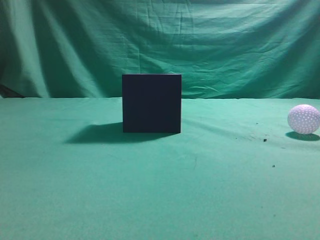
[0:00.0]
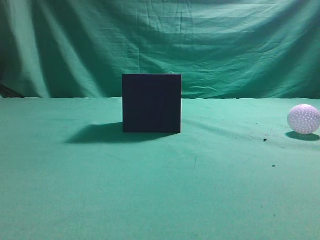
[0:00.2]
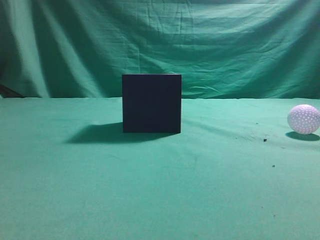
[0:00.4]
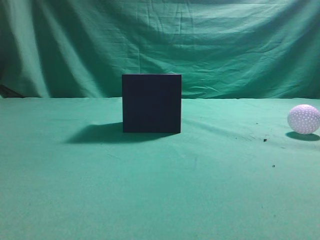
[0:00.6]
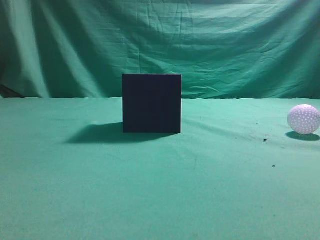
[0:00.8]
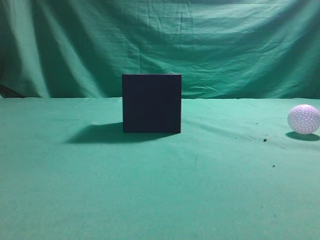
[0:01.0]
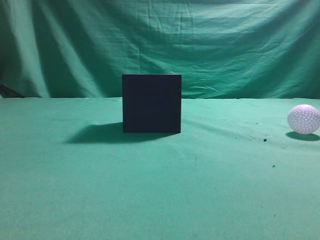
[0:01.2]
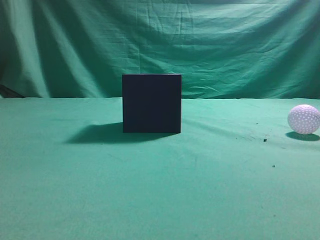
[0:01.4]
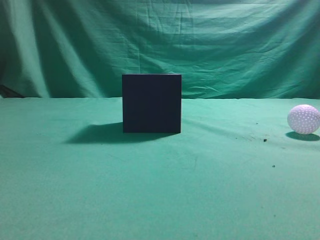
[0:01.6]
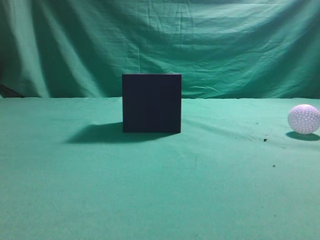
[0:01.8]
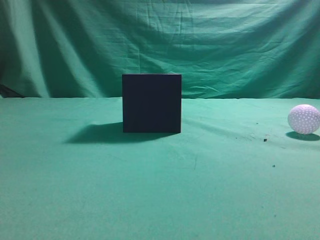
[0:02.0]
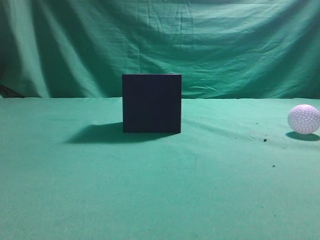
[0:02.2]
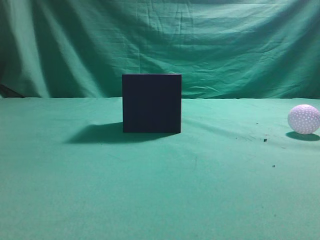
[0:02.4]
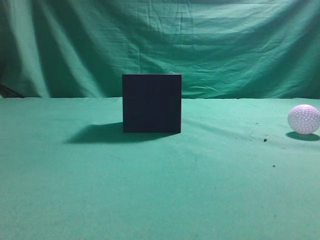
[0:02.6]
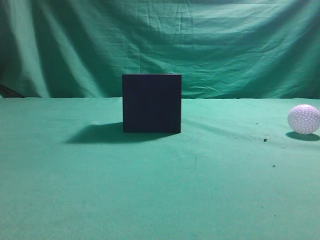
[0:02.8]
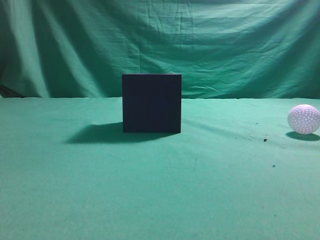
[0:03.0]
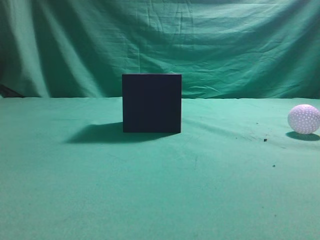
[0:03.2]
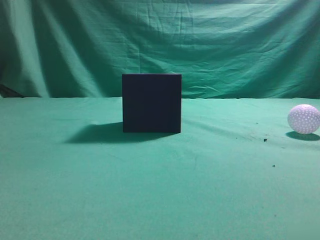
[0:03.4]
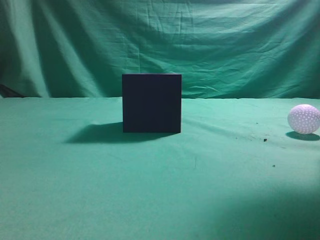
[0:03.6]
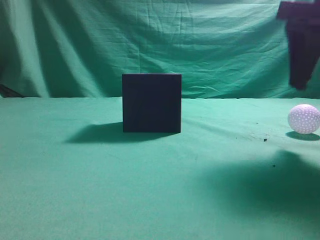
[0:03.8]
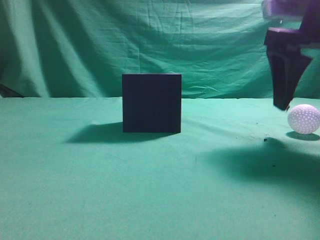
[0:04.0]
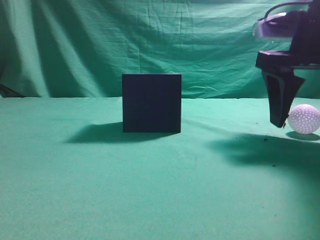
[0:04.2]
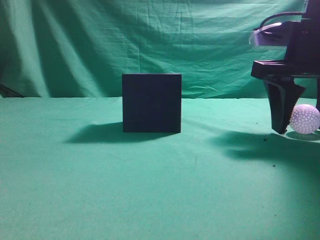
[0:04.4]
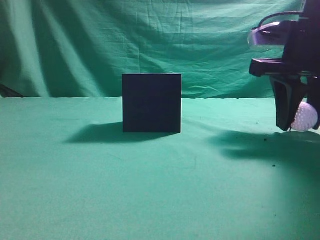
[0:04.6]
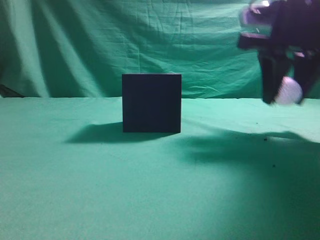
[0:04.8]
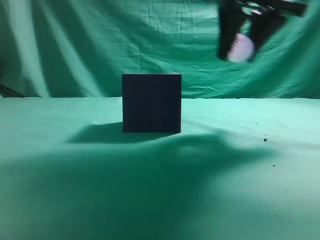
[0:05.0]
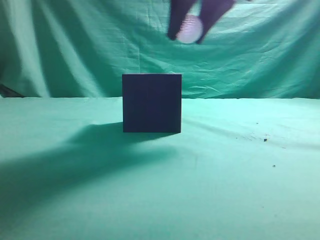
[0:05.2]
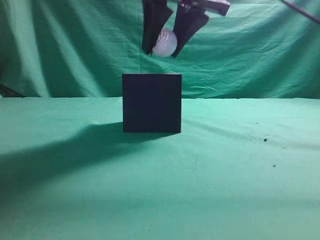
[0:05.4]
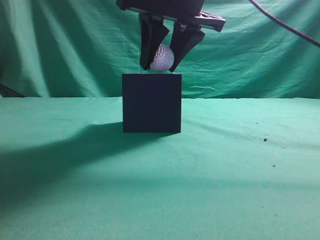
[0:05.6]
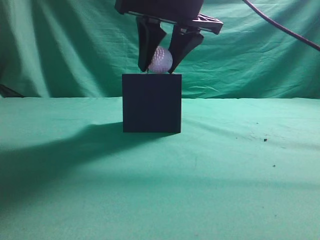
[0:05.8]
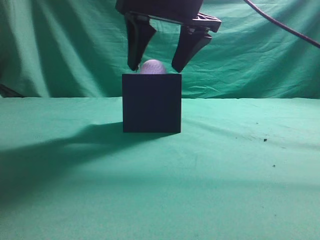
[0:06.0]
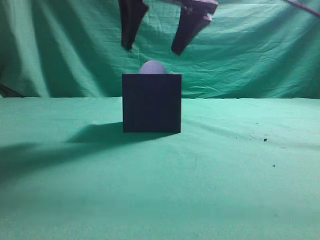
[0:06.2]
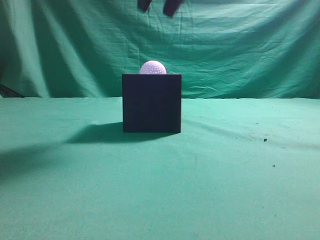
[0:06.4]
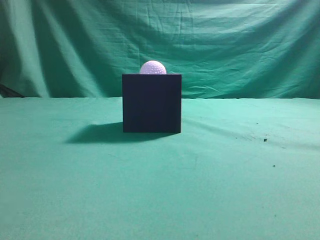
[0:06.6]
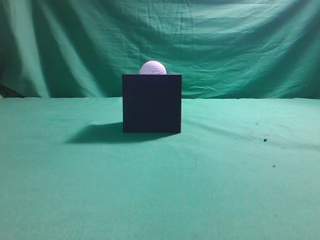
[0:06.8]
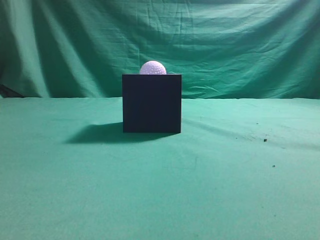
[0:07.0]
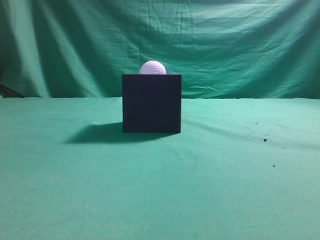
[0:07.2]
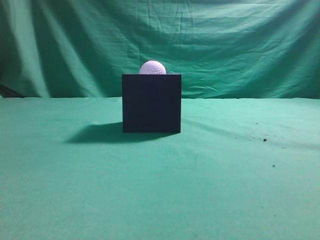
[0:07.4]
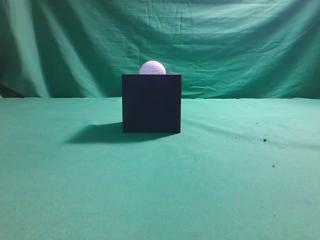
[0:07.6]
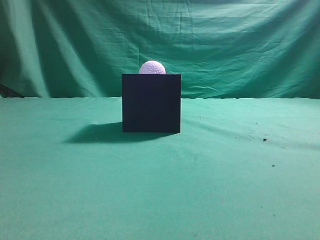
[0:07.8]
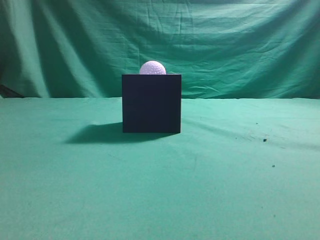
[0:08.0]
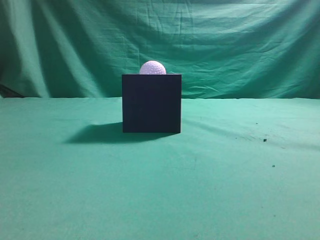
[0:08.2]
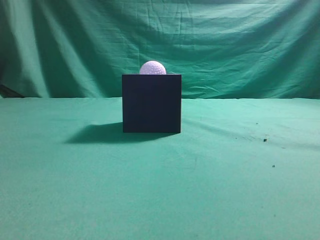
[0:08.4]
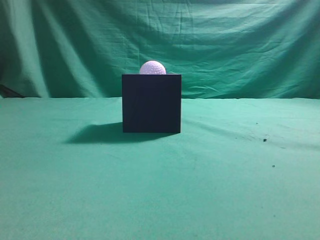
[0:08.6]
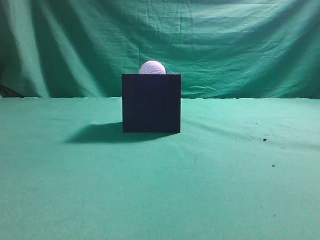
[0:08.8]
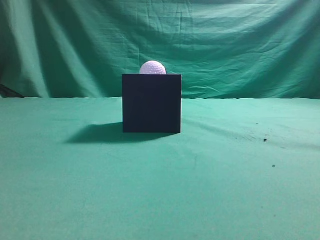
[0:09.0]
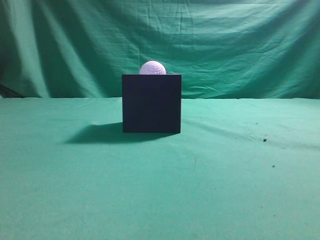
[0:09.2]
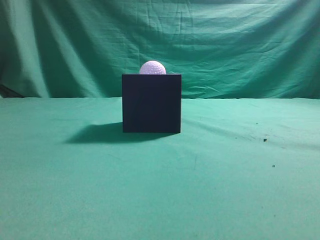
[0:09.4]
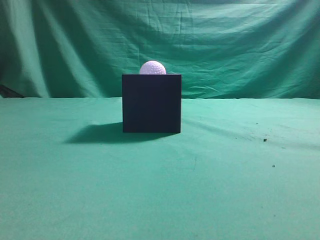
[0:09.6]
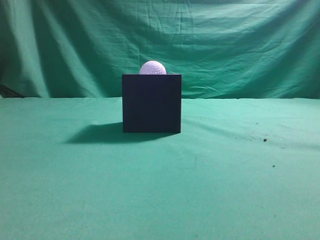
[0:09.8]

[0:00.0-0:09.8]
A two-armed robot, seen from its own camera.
Task of the whole recording: Pick up the ball and place it in the circular groove above the cube.
Step, 0:00.0 to 0:04.8: Grasp the sphere on the table.
Step, 0:05.0 to 0:06.2: Place the sphere into the sphere-shaped recess.
0:02.8 to 0:04.2: The right gripper goes roughly 25 cm forward, downward and to the left, and opens.
0:04.2 to 0:05.6: The right gripper goes about 15 cm to the left and upward, and closes up.
0:05.6 to 0:07.0: The right gripper is displaced upward and backward by some 25 cm, and closes up.
